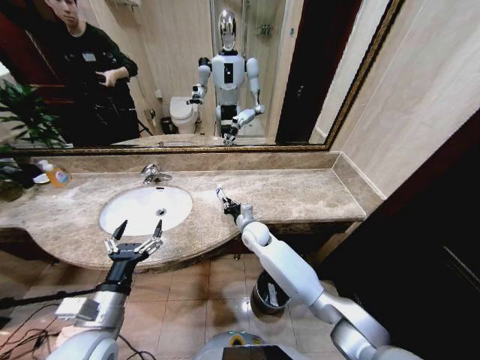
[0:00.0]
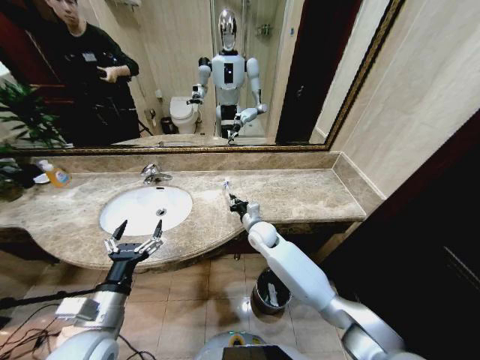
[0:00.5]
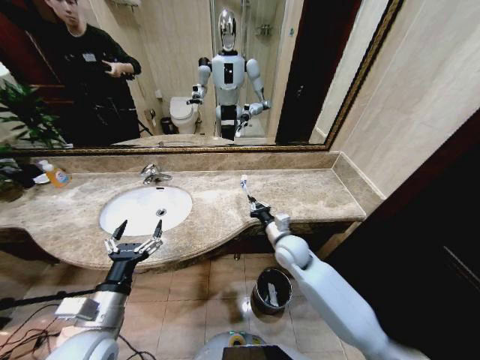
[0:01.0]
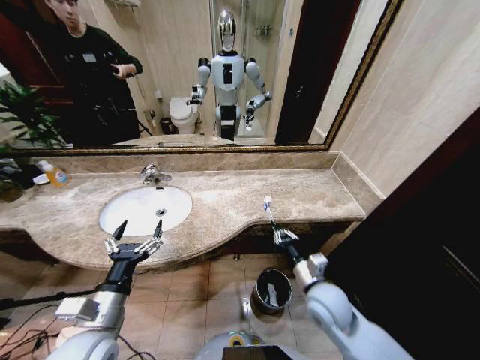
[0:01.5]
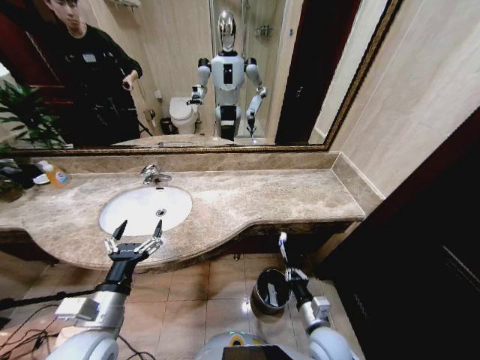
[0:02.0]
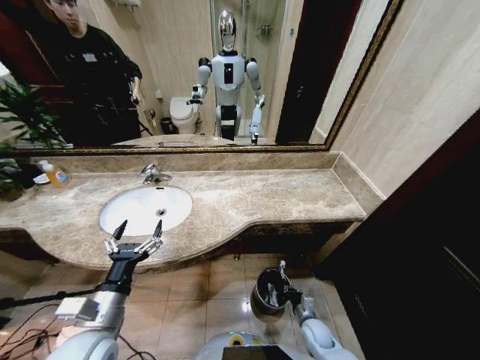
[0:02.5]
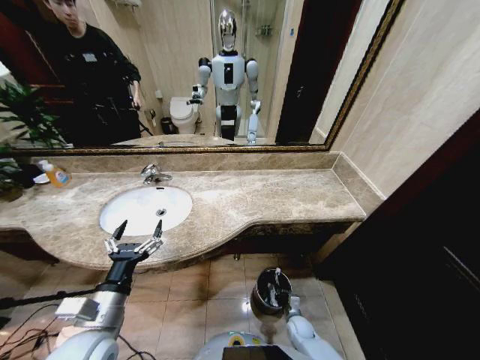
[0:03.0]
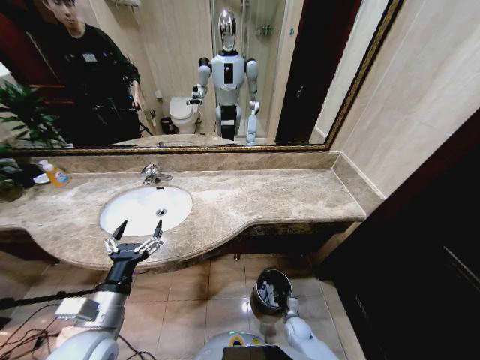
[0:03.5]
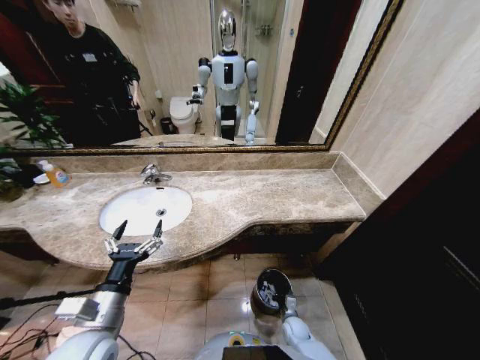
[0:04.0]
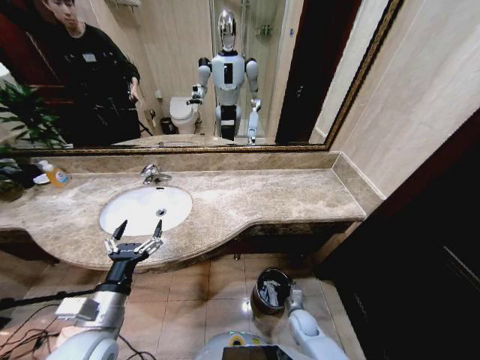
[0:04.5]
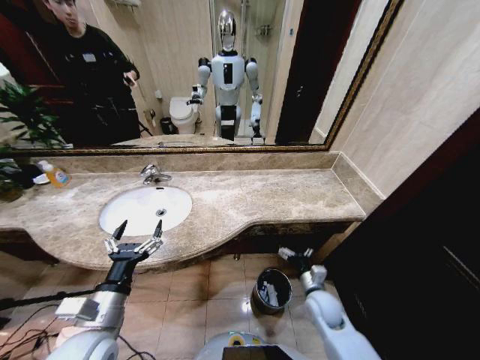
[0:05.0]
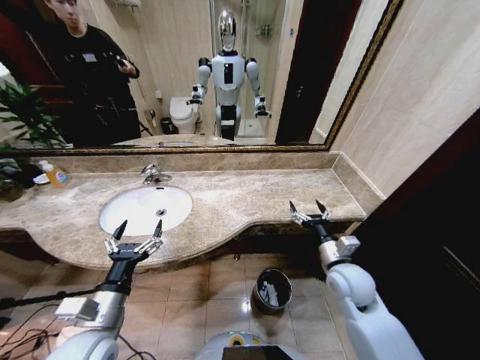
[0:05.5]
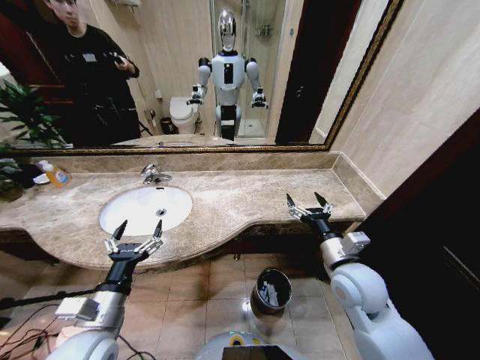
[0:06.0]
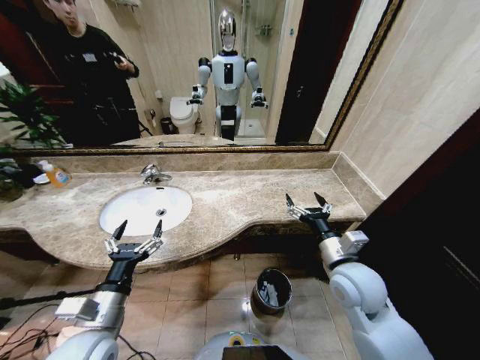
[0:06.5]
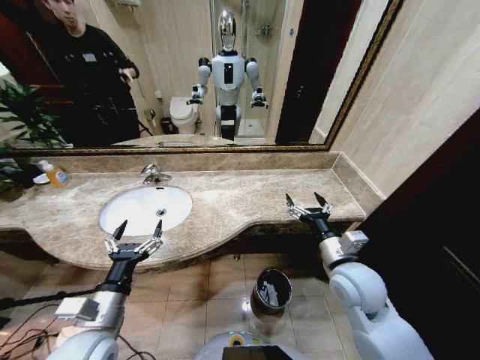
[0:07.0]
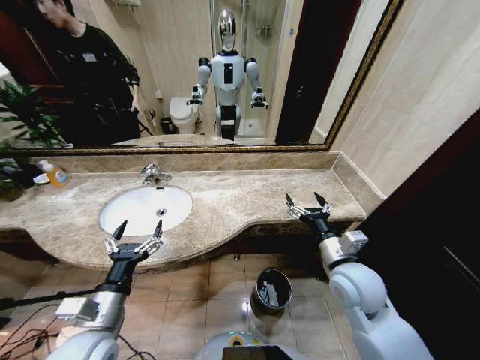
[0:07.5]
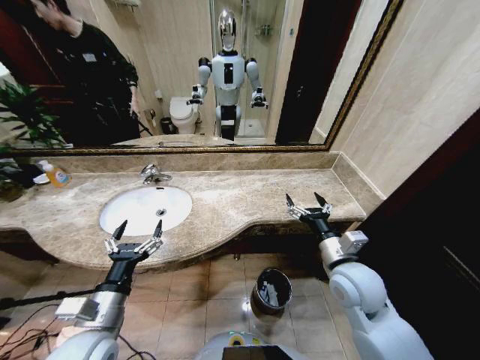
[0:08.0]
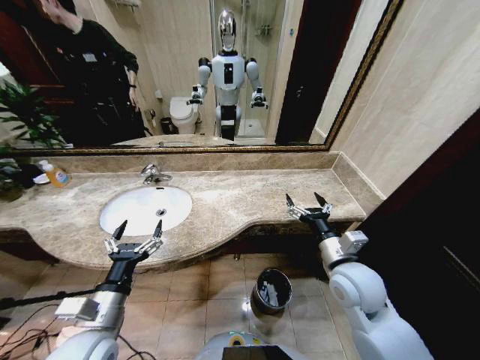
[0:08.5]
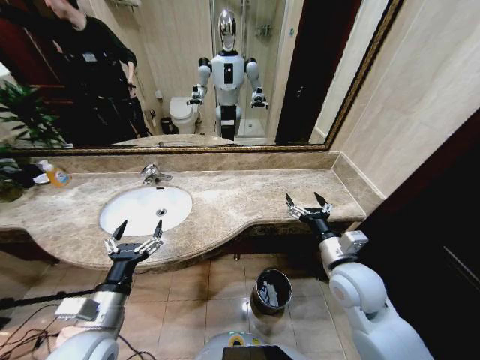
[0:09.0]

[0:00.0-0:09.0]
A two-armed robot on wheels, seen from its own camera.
Task of the whole recording: Pick up the trash from the sink and place it in the trash bin.
0:00.0 to 0:02.0: The right gripper is displaced backward and to the right by approximately 35 cm.
0:02.0 to 0:04.5: The right gripper is displaced downward and forward by approximately 20 cm, and opens.
0:04.5 to 0:07.0: The right gripper heads upward, covering about 35 cm.
0:07.0 to 0:09.0: Both grippers stay put.
